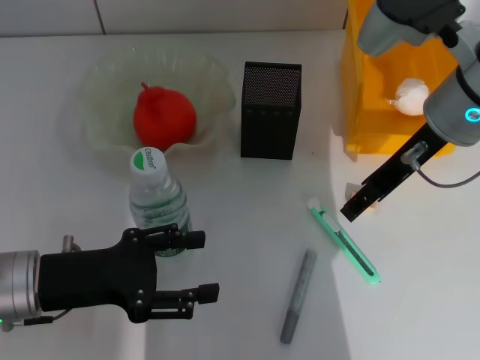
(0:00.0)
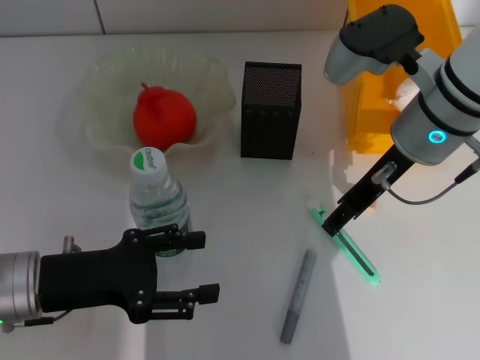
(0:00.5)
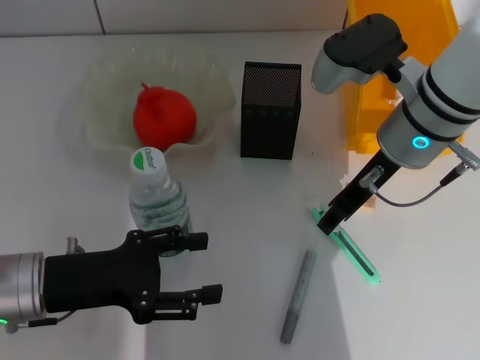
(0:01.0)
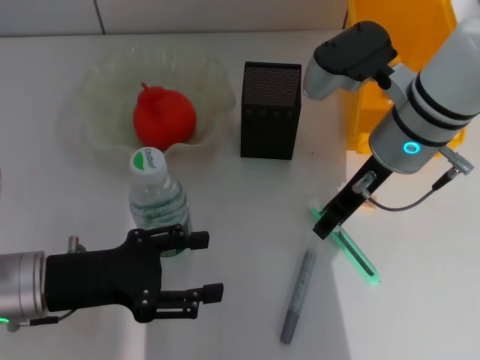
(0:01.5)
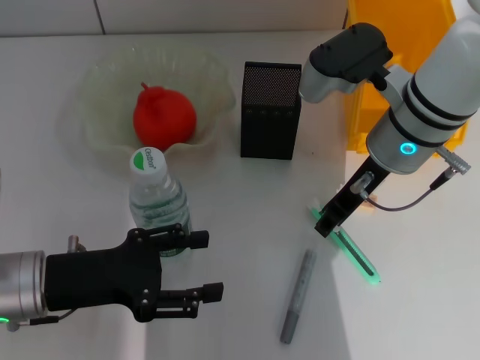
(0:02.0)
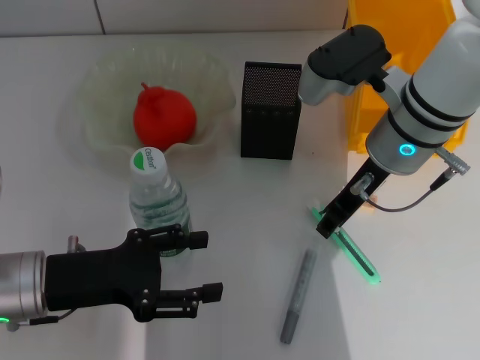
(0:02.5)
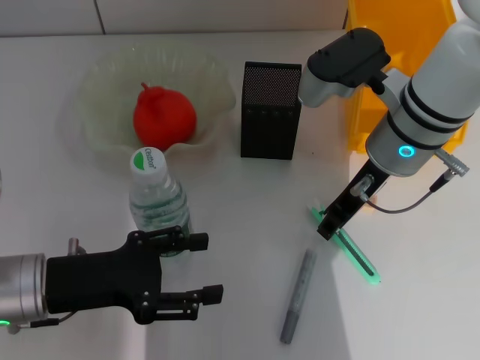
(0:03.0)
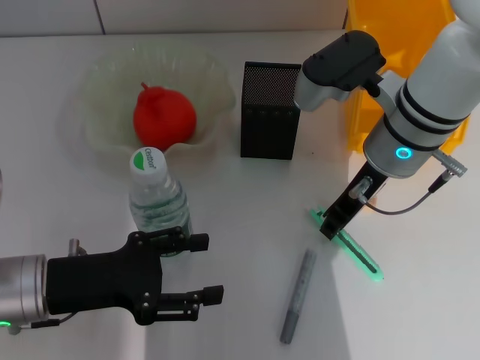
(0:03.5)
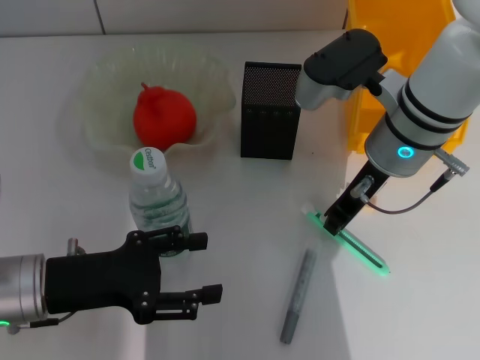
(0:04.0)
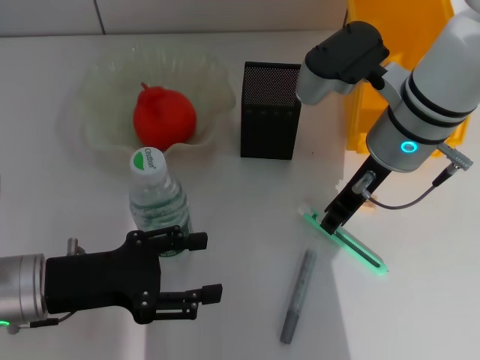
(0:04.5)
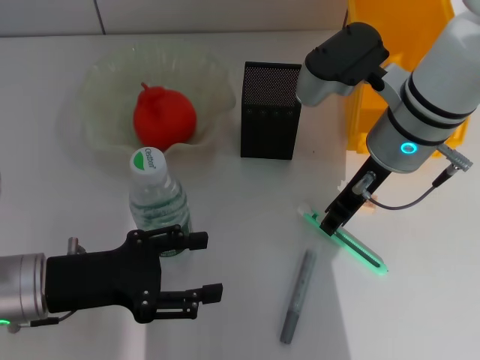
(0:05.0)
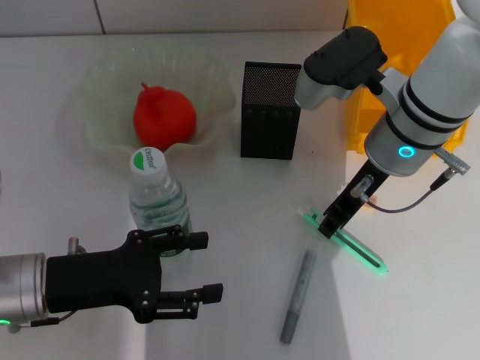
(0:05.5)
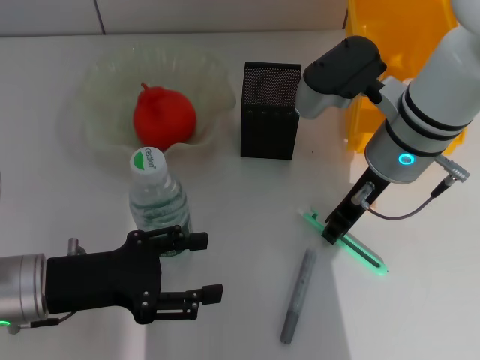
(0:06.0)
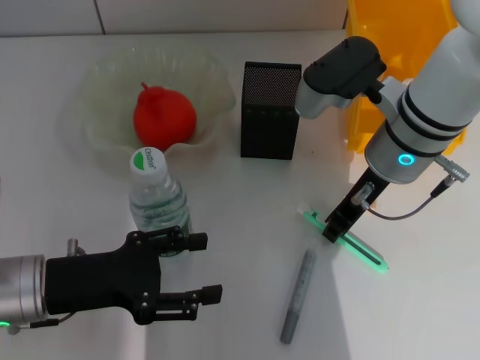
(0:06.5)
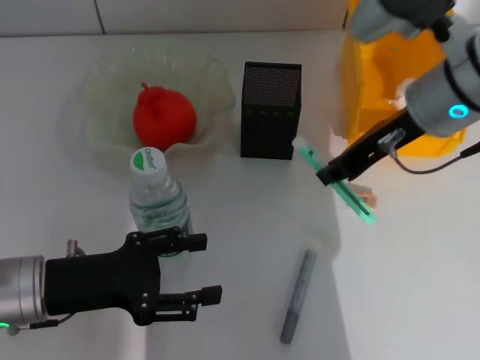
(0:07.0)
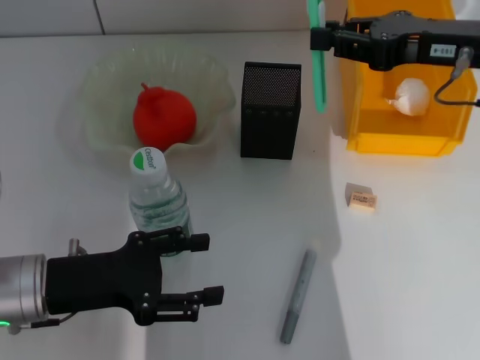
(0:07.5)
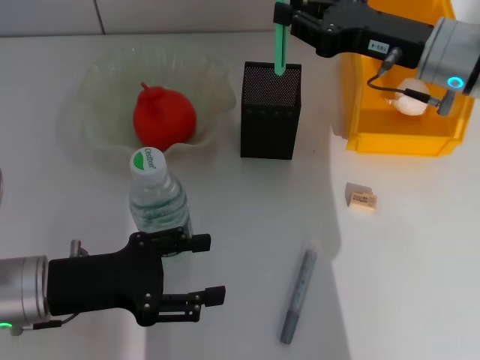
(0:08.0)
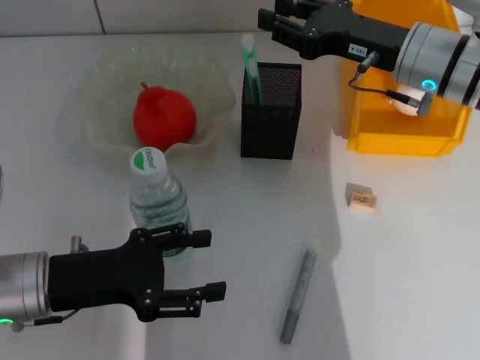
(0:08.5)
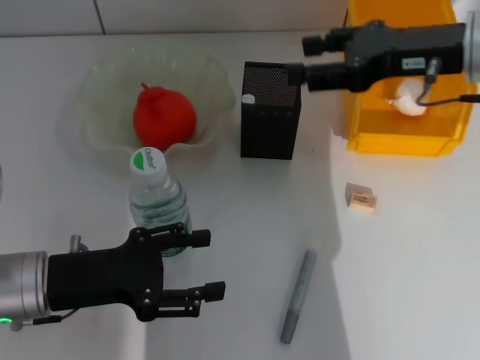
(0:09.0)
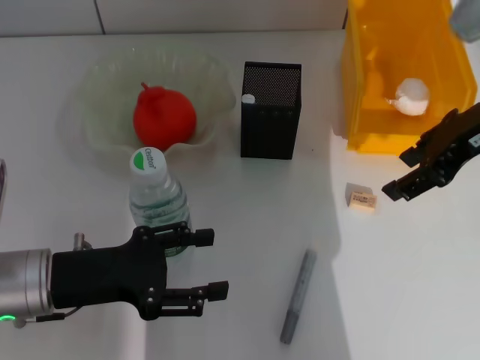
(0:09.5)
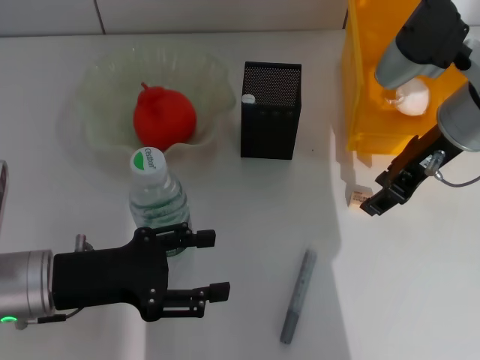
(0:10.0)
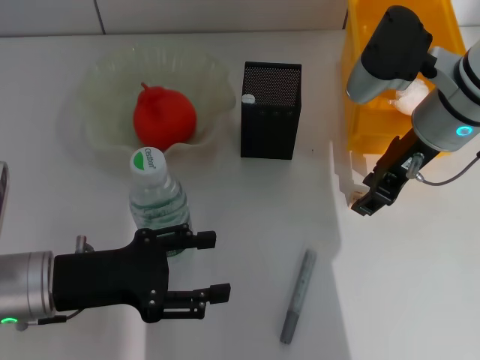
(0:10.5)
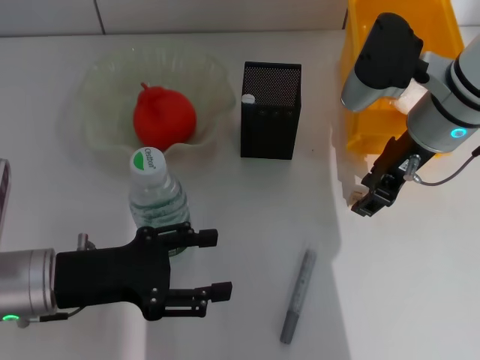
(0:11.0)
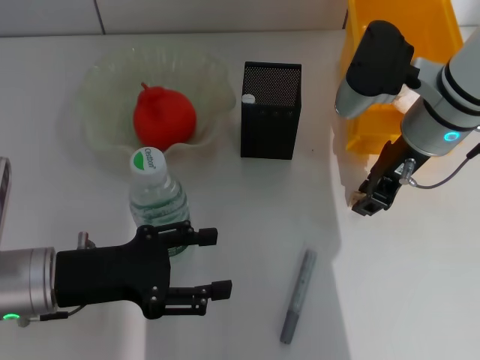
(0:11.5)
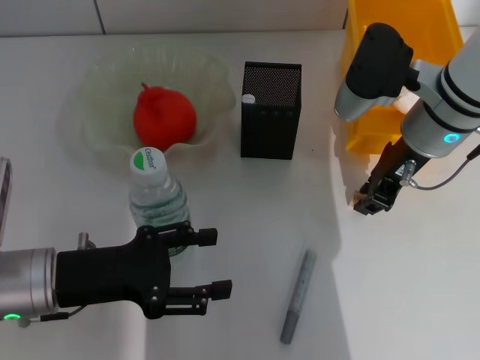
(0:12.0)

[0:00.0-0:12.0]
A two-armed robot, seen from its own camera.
Step, 0:00.0 to 0:06.0: Grab the blue utility knife with the right hand.
Step, 0:06.5 to 0:08.5: Place the blue utility knife into the pen holder with the right hand.
Step, 0:09.5 to 0:12.0: Grab the eraser with the right hand.
0:00.0 to 0:02.0: The right gripper changes place by about 5 cm, and closes.
0:02.0 to 0:04.0: The right gripper closes its fingers.
0:04.0 to 0:06.0: Both grippers stay about where they are.
0:06.0 to 0:08.0: The right gripper shifts about 5 cm to the right.
0:08.0 to 0:10.0: The right gripper travels upward and back again, about 5 cm each way, and opens up.
0:10.0 to 0:12.0: The right gripper closes.

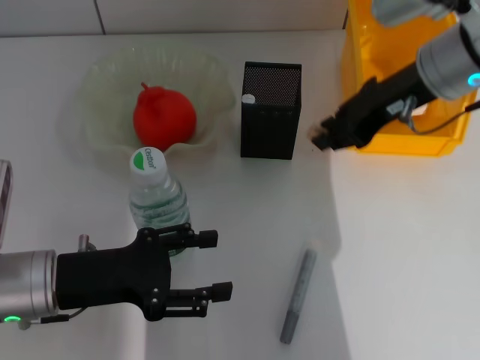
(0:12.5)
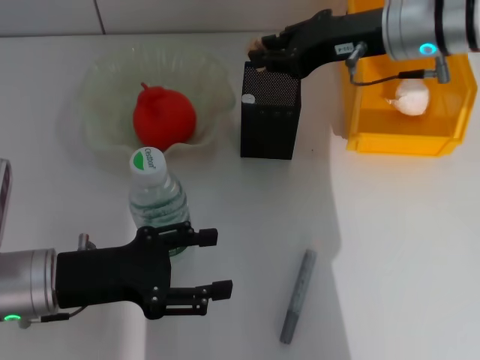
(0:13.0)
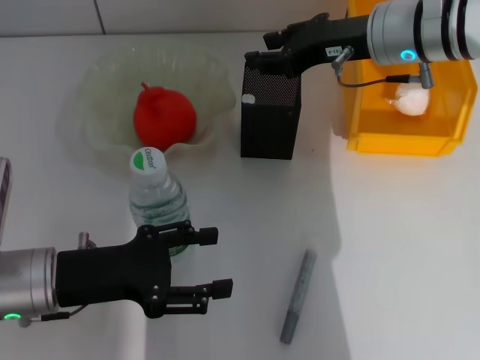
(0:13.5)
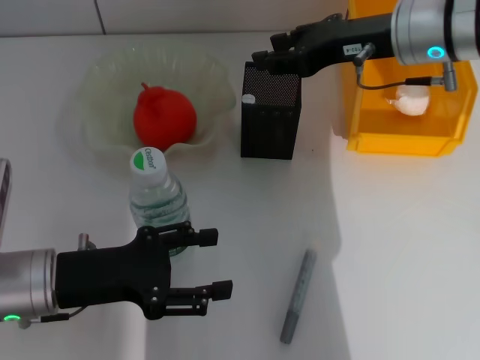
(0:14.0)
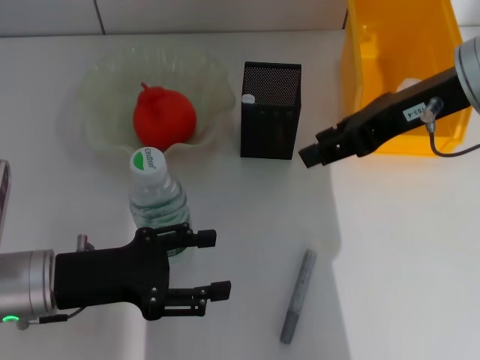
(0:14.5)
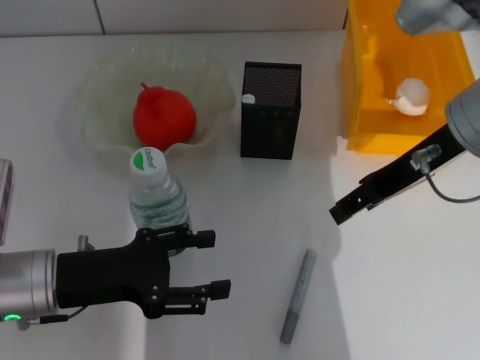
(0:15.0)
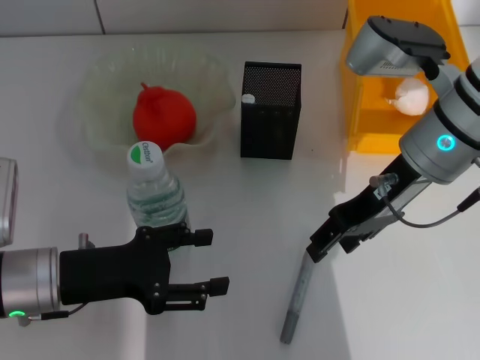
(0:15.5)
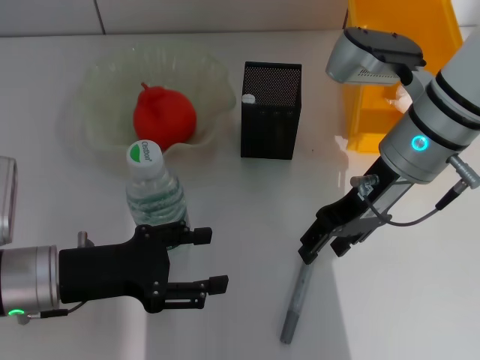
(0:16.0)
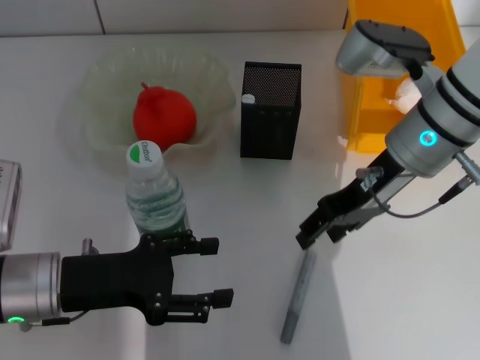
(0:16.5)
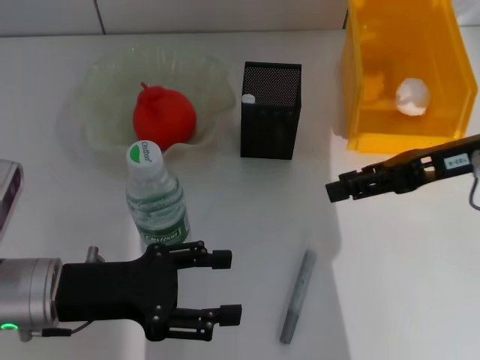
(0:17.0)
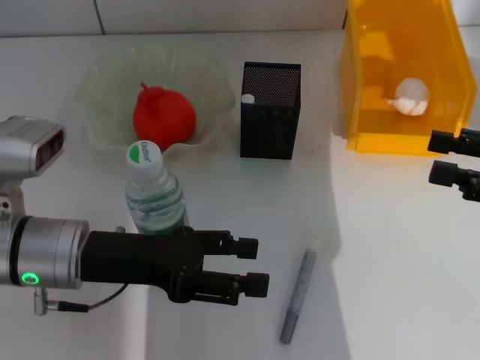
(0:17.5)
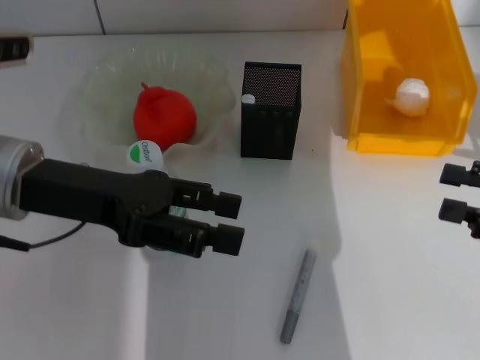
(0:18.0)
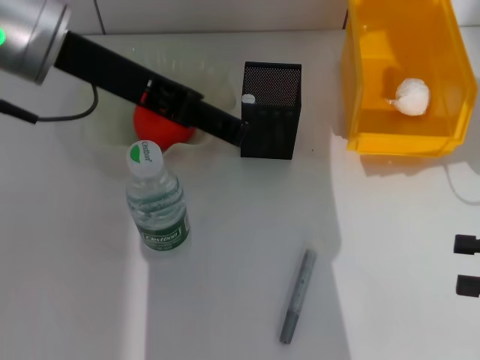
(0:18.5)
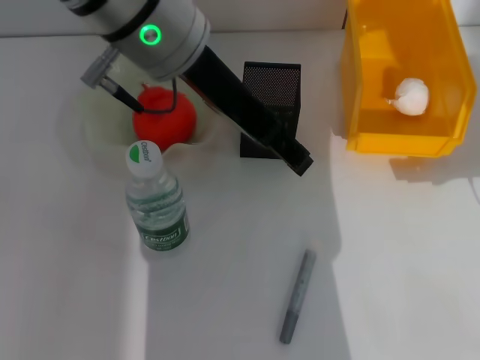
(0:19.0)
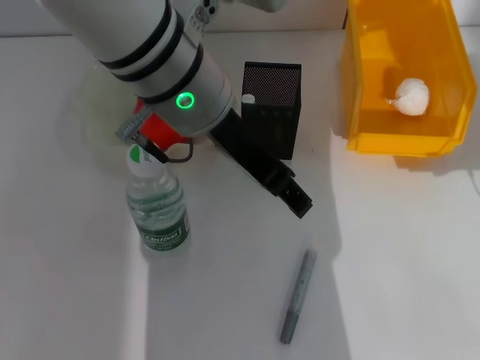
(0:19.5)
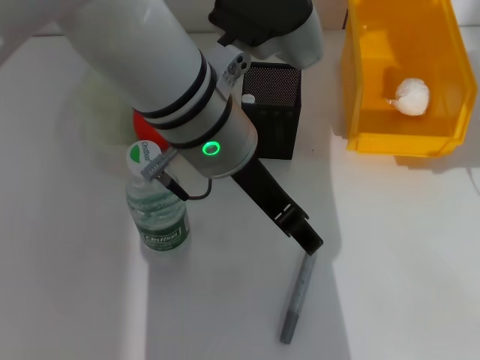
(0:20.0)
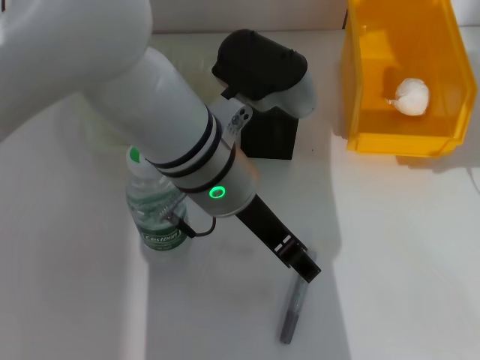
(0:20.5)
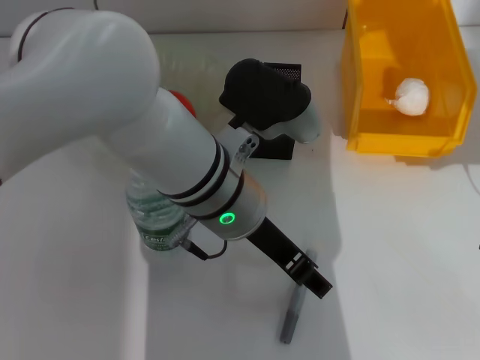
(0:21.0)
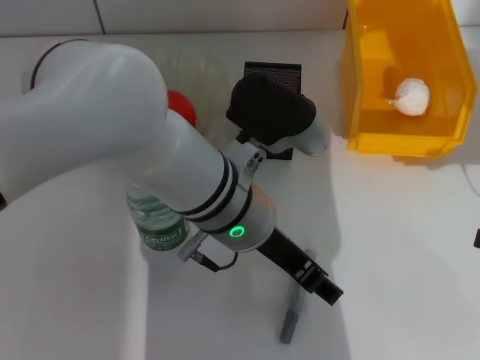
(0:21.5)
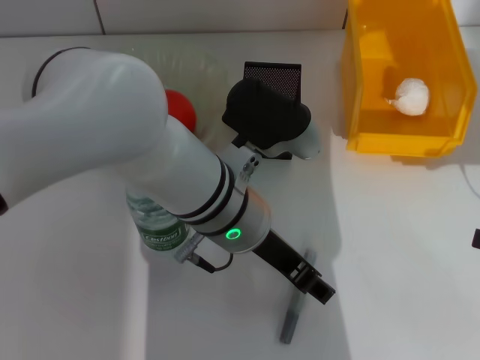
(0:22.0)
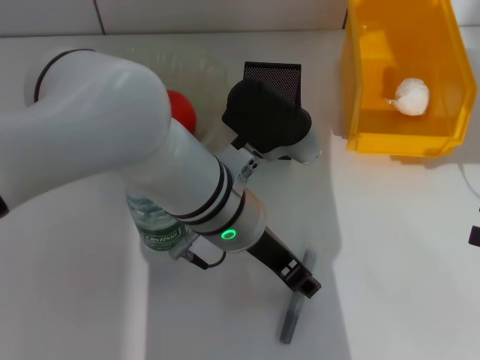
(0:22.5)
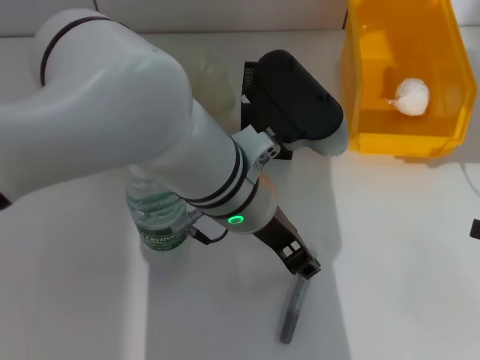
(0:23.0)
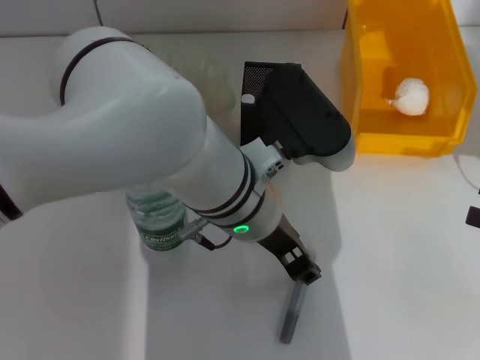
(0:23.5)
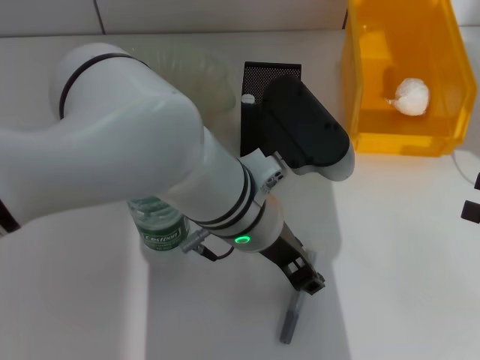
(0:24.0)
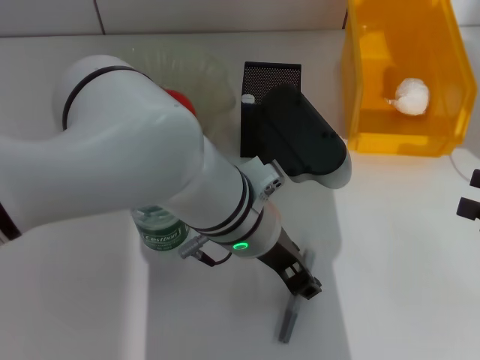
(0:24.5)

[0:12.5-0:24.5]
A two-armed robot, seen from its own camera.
Step, 0:12.5 to 0:13.5: Put the eraser into the pen holder with the right hand.
0:12.5 to 0:14.5: The right gripper moves some 5 cm, and opens.
0:14.5 to 0:16.5: The right gripper shifts roughly 10 cm downward.
0:16.5 to 0:18.5: The right gripper shifts about 25 cm to the right and backward. The left gripper heads upward and forward, covering about 25 cm.
0:18.5 to 0:20.5: The left gripper shifts roughly 15 cm to the right and downward.
0:20.5 to 0:24.5: The grippers move only a little.

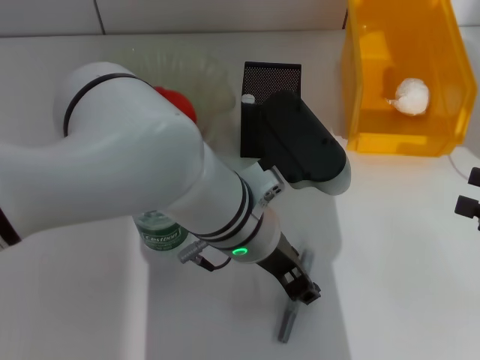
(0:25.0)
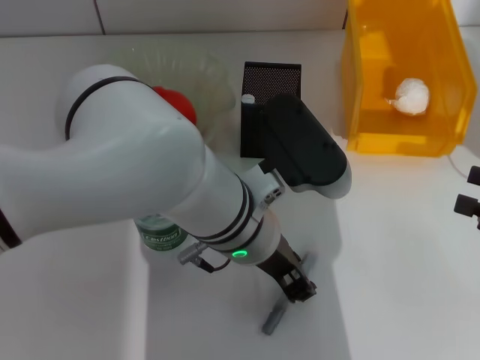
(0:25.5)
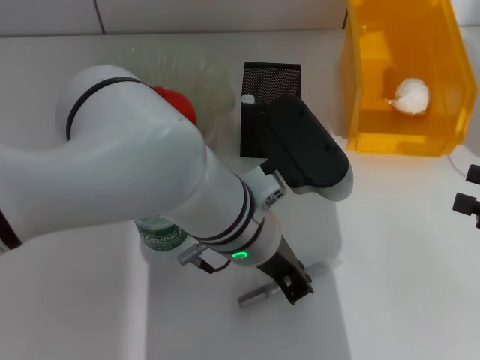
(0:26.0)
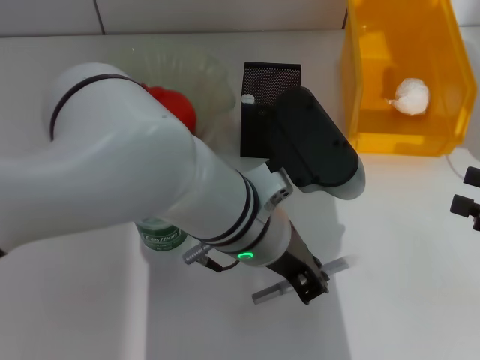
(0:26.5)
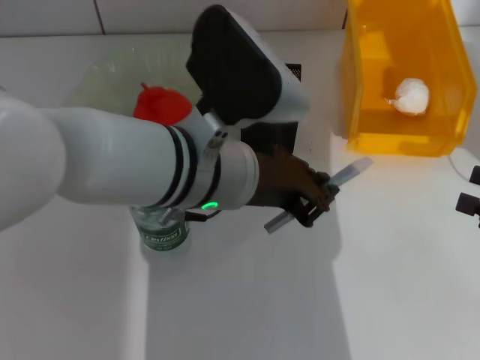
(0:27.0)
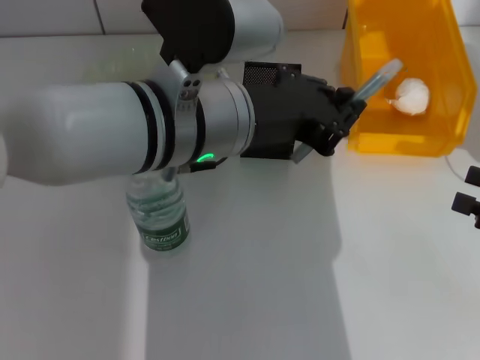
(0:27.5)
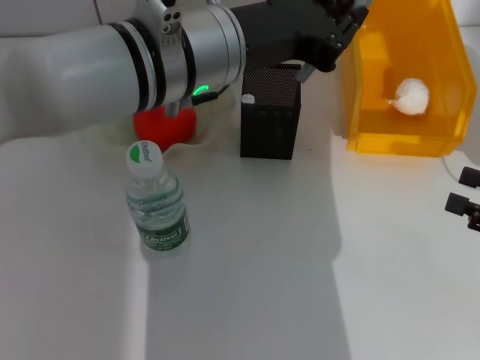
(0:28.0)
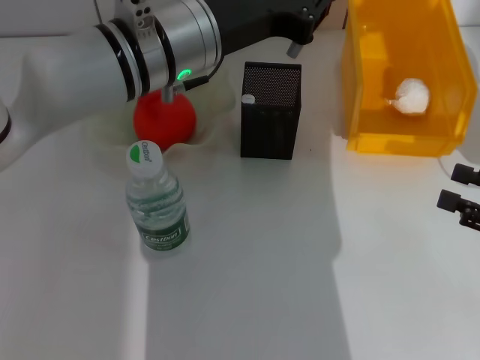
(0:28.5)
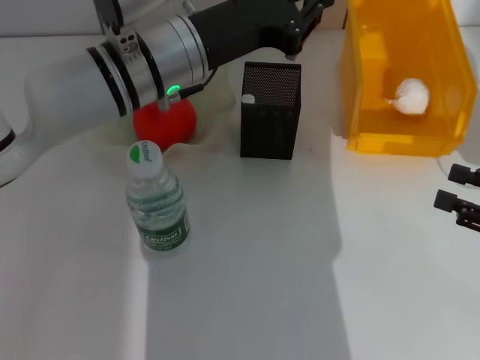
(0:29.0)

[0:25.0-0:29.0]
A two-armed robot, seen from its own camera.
0:25.0 to 0:27.0: The left gripper moves some 5 cm, and closes up.
0:27.0 to 0:29.0: The left gripper travels forward by roughly 10 cm.
